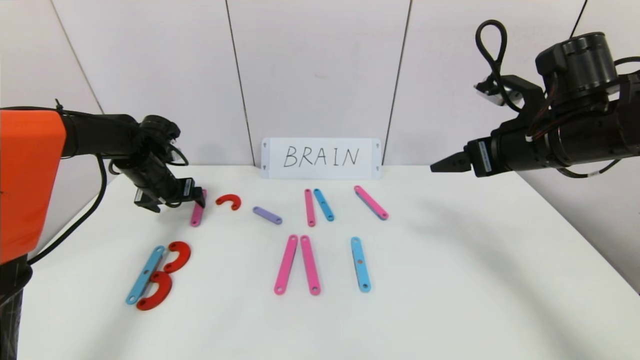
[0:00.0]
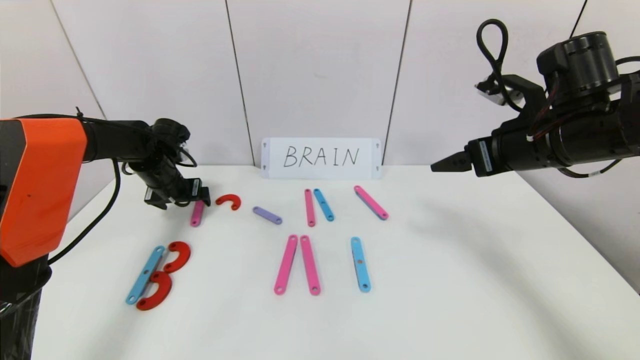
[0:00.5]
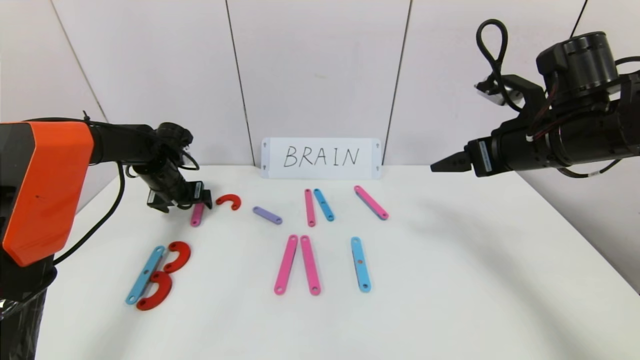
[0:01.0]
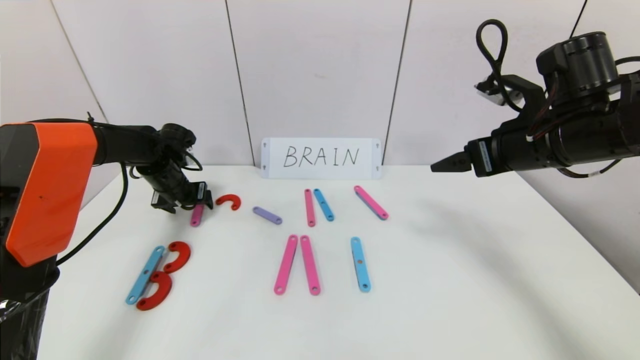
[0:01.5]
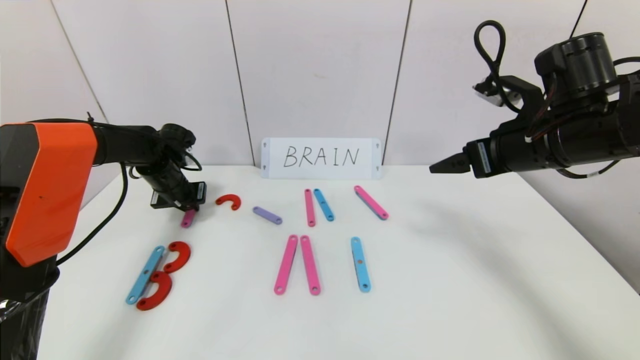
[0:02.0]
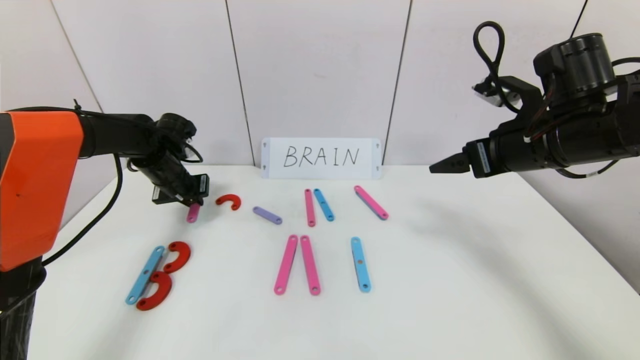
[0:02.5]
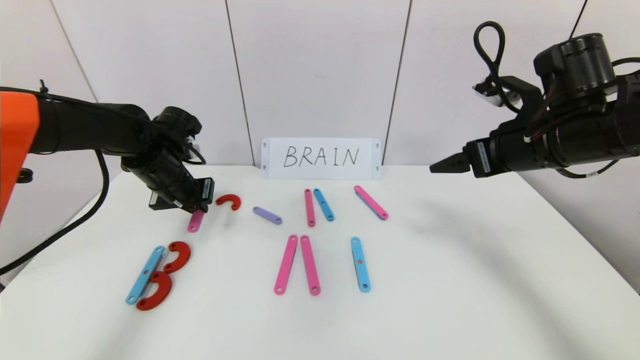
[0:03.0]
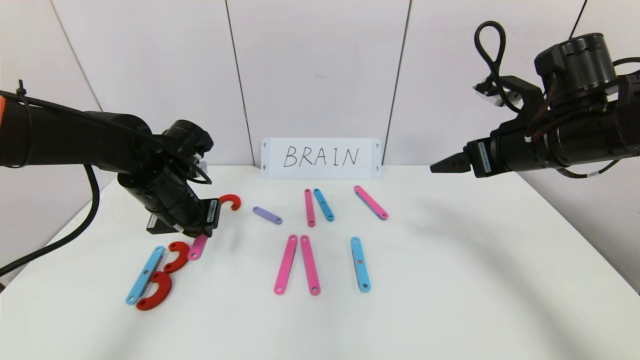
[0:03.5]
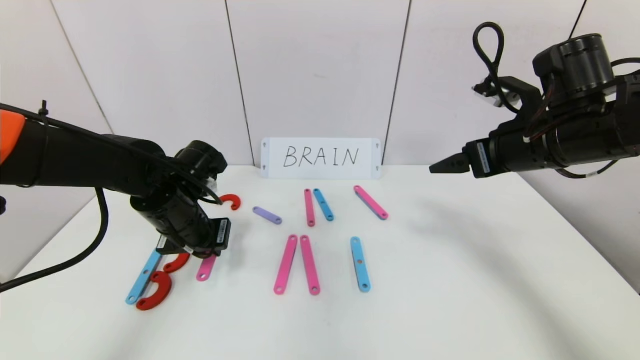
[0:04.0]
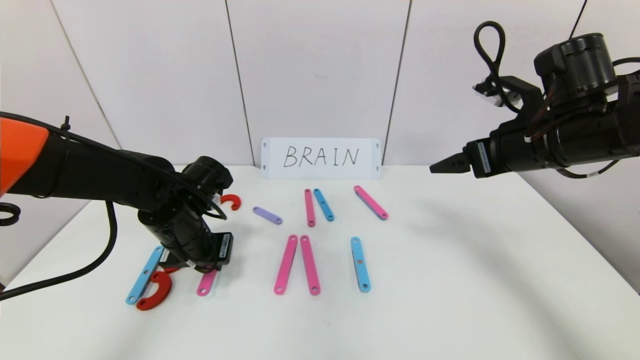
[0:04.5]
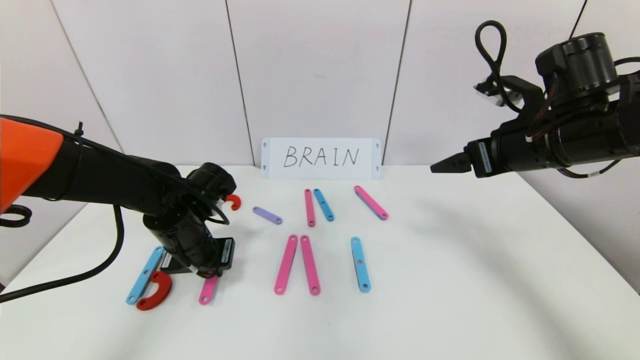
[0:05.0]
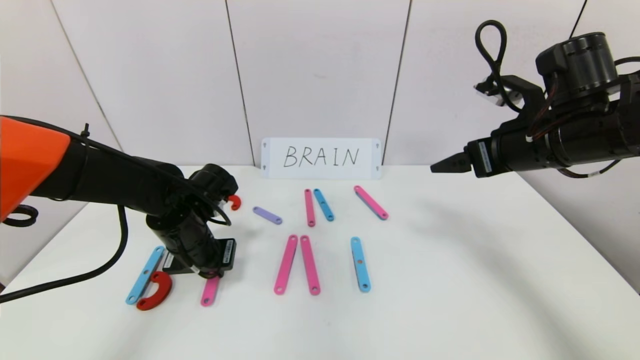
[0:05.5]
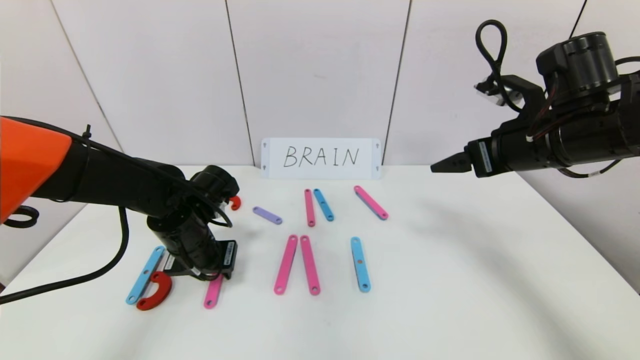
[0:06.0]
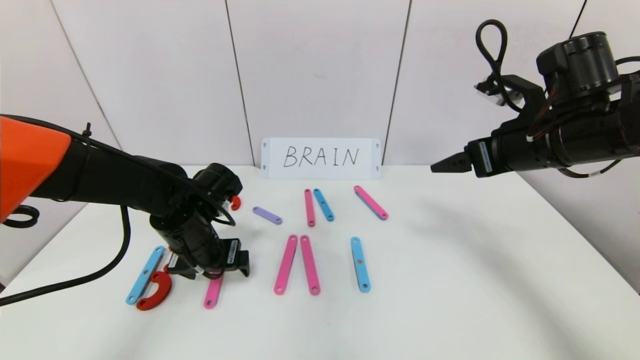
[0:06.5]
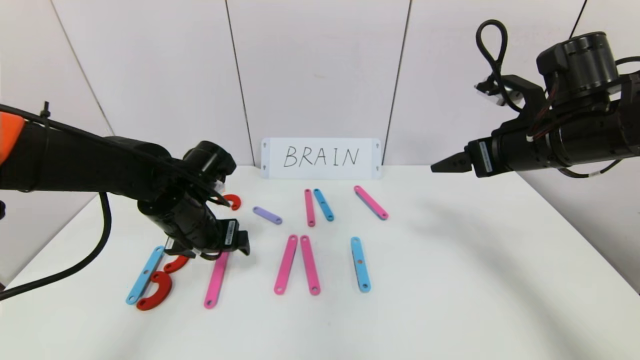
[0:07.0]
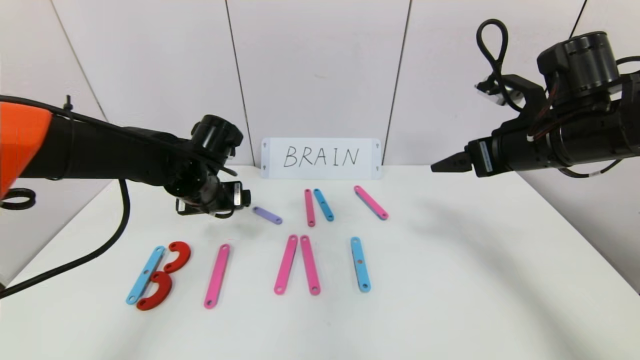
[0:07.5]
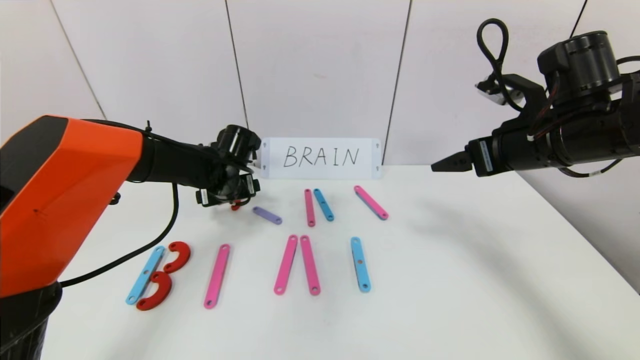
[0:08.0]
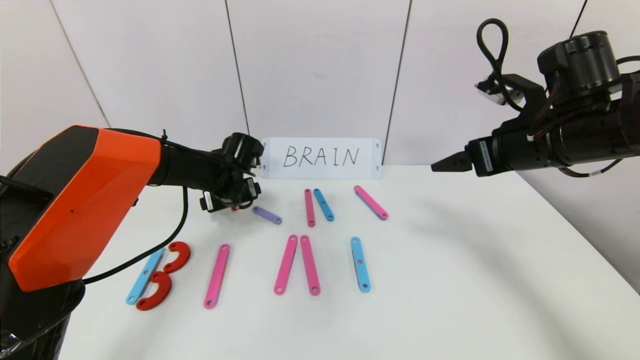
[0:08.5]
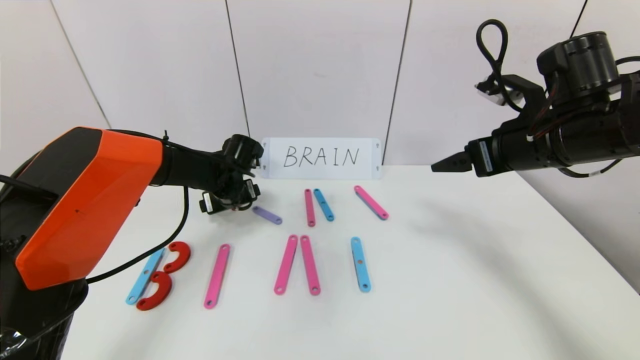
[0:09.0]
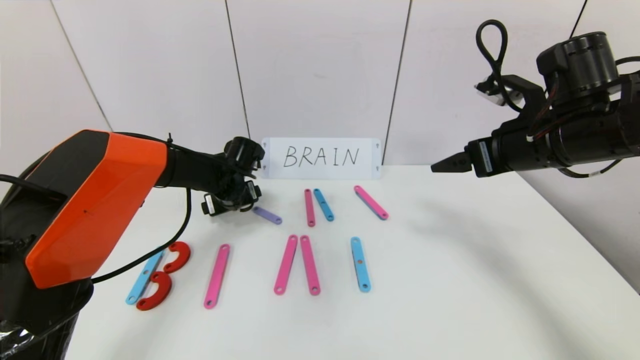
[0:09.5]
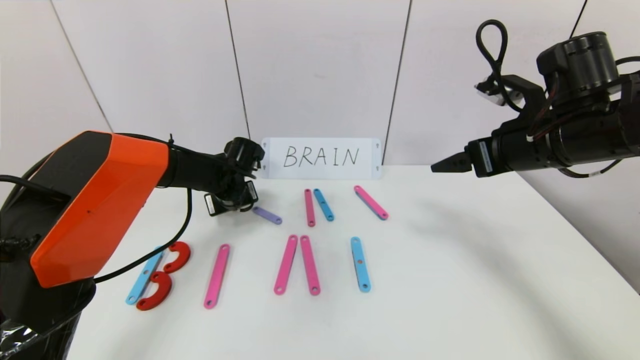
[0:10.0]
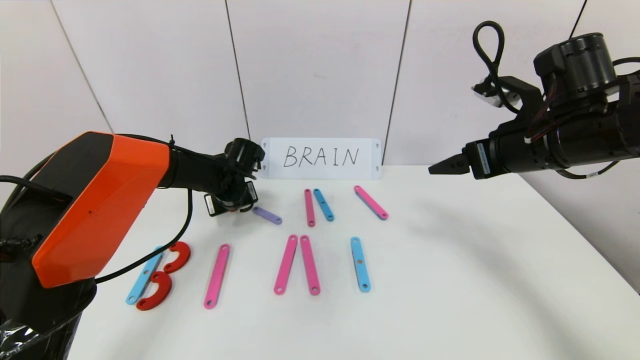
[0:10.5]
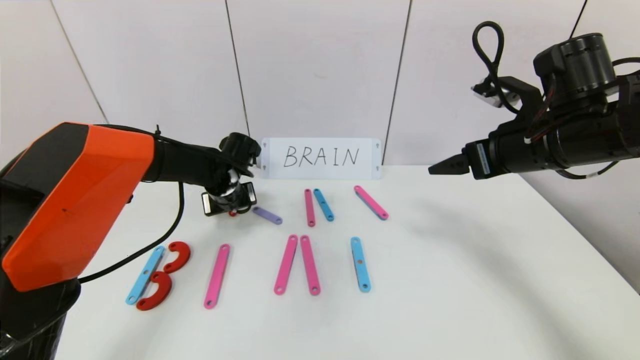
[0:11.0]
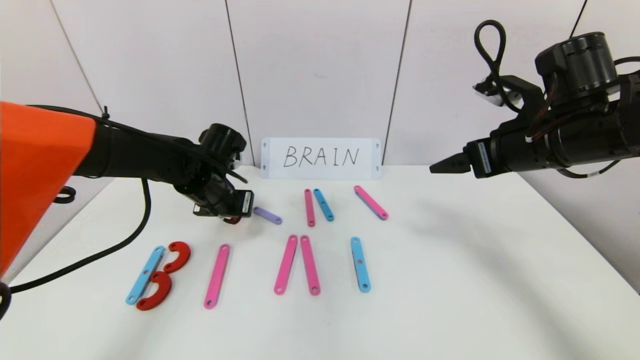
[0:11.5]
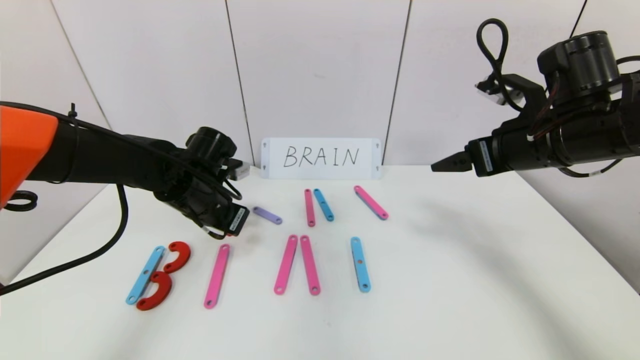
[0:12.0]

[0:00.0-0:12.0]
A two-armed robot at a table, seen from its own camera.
Task of the whole recording: rearrange the word baai as brain.
0.0 to 2.0 s: The left gripper closes.
2.0 to 4.0 s: The left gripper heads backward and to the right, covering approximately 15 cm.
4.0 to 6.0 s: There are only small adjustments of the grippers.
6.0 to 8.0 s: The left gripper travels forward by about 10 cm, and opens.
8.0 to 10.0 s: The left gripper closes up.
10.0 to 12.0 s: The left gripper travels backward and upward by some 10 cm, and closes up.

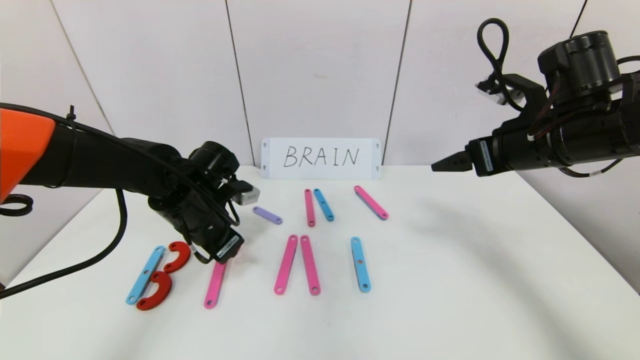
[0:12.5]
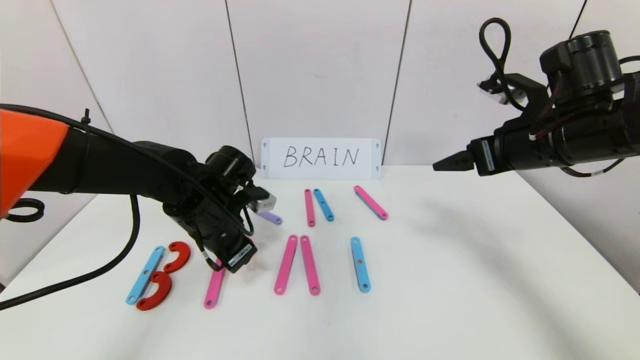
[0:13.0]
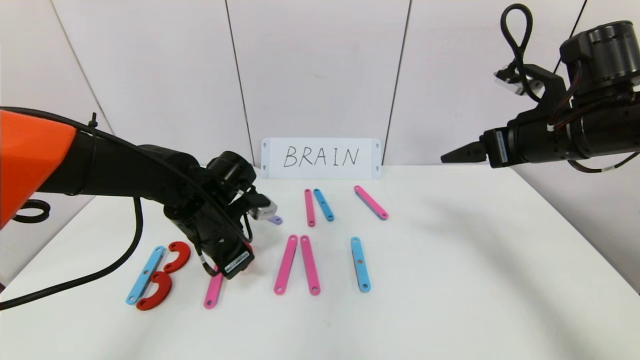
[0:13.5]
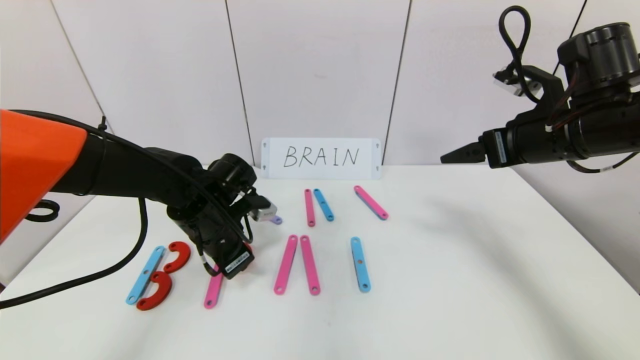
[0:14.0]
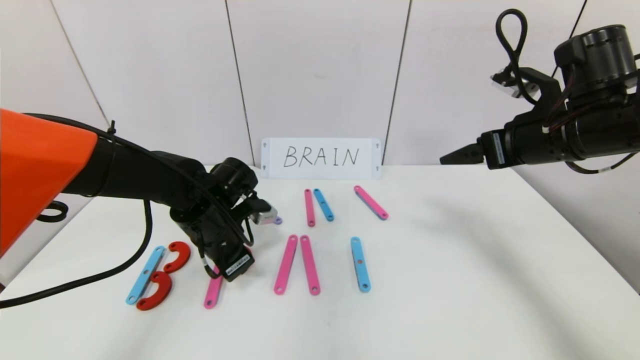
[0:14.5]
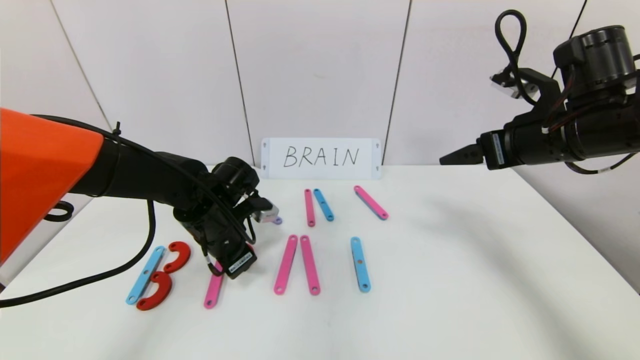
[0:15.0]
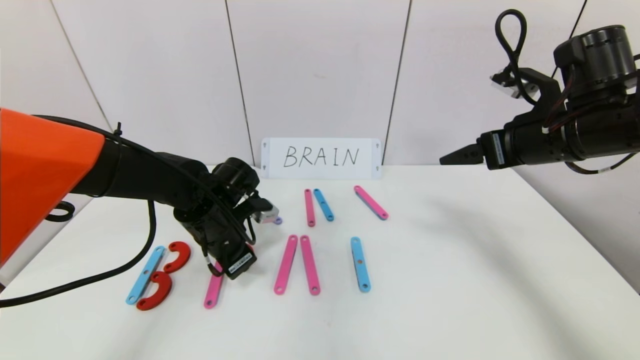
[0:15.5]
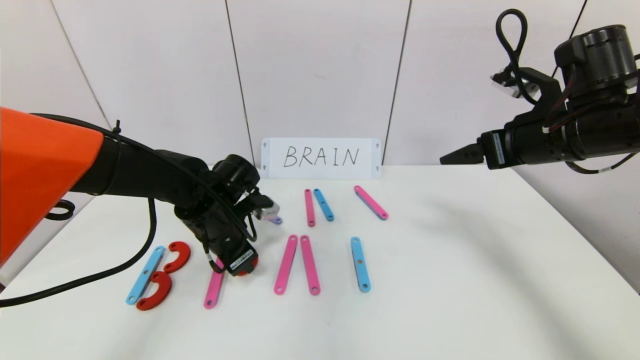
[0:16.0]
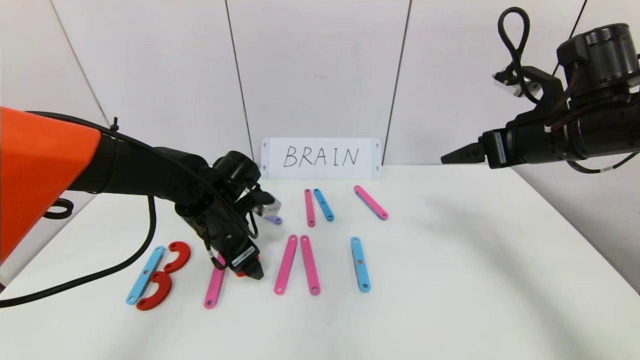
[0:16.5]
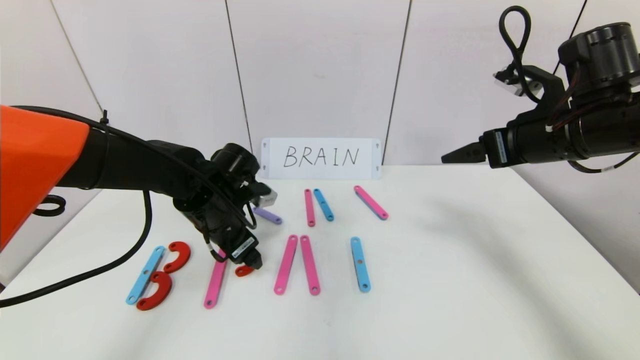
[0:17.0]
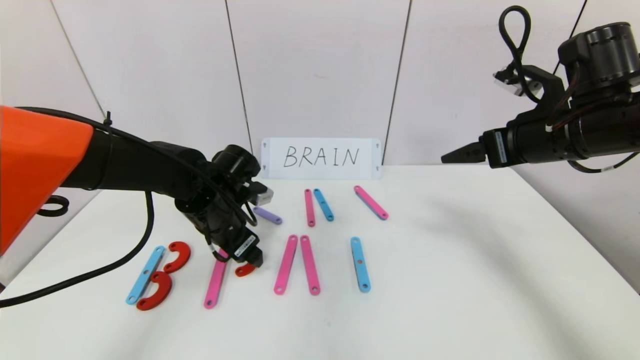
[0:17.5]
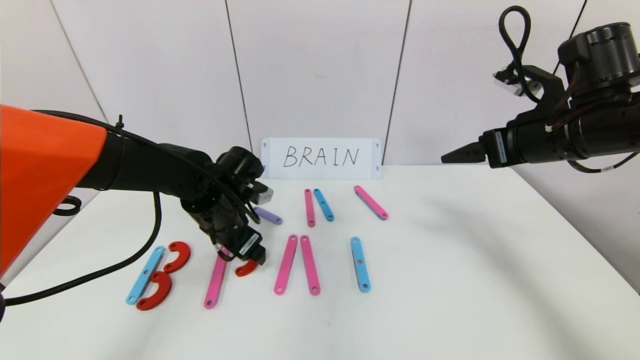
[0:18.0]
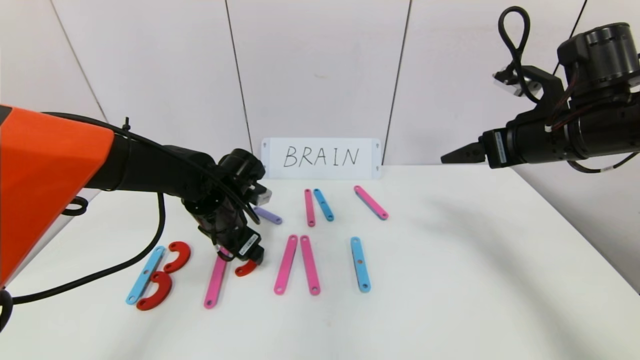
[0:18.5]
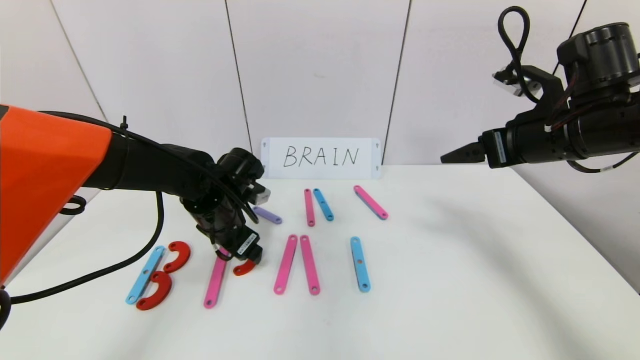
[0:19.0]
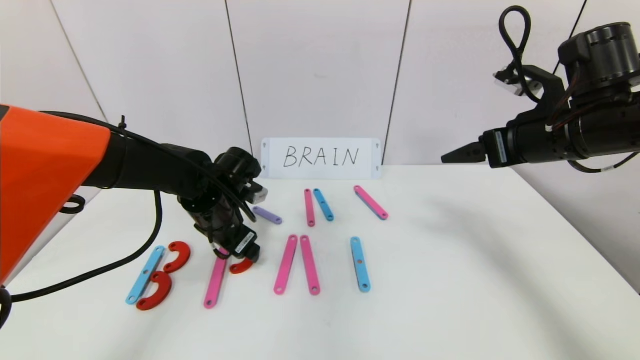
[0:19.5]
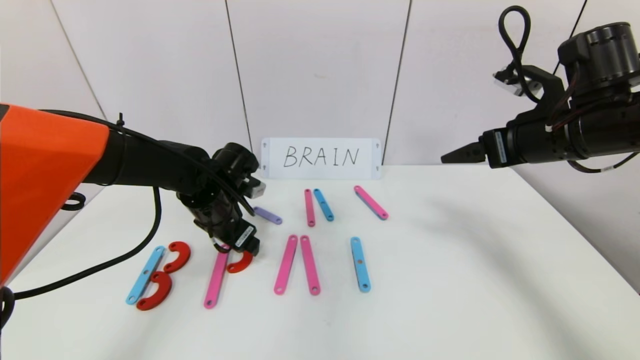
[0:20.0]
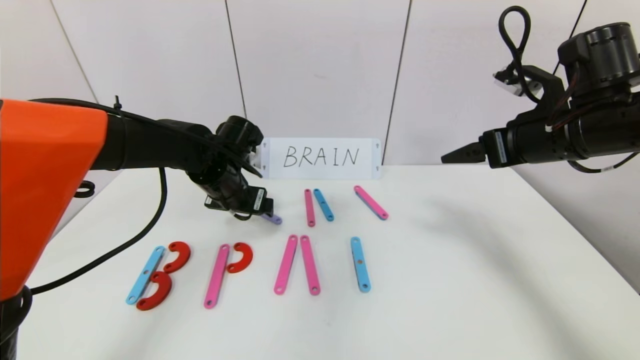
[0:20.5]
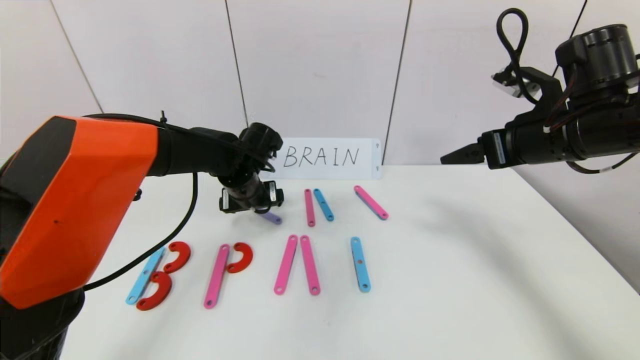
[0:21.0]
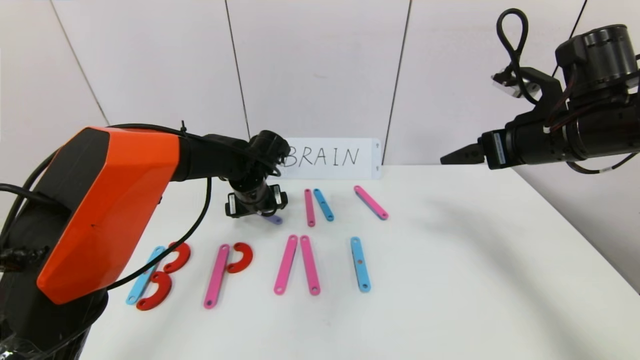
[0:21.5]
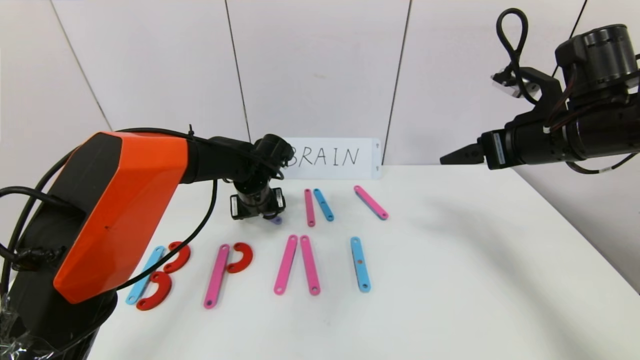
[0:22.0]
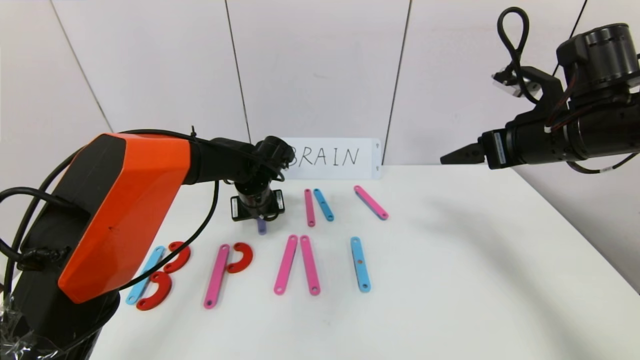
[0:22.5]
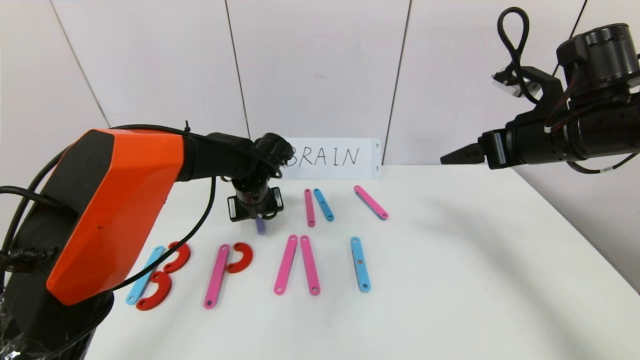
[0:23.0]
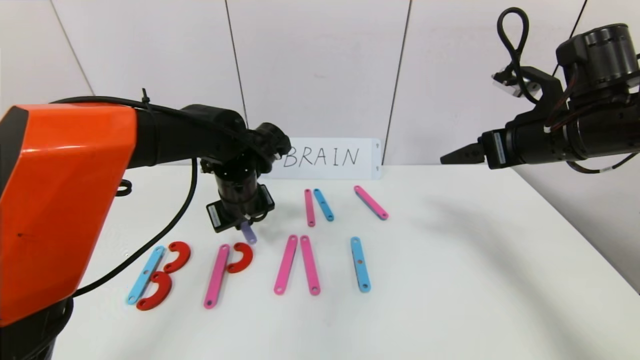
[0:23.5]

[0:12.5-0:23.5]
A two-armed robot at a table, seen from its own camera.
Task of the whole recording: rearrange the word baai as brain.
12.5 to 14.5 s: There are only small adjustments of the grippers.
14.5 to 16.0 s: Both grippers stay put.
16.0 to 18.0 s: The left gripper opens up.
18.0 to 20.0 s: There are only small adjustments of the grippers.
20.0 to 21.5 s: The left gripper shifts about 5 cm forward.
21.5 to 23.5 s: The left gripper travels backward by approximately 5 cm, and closes.
